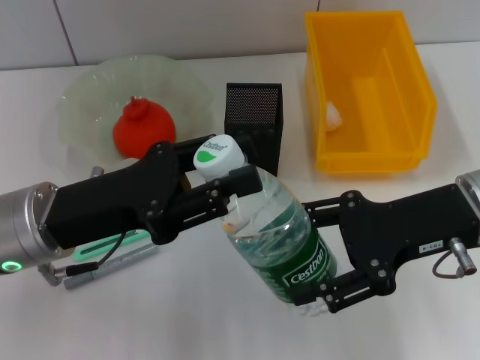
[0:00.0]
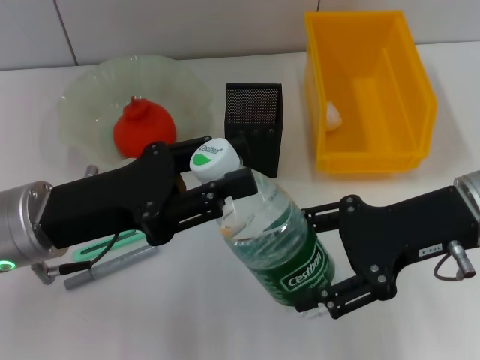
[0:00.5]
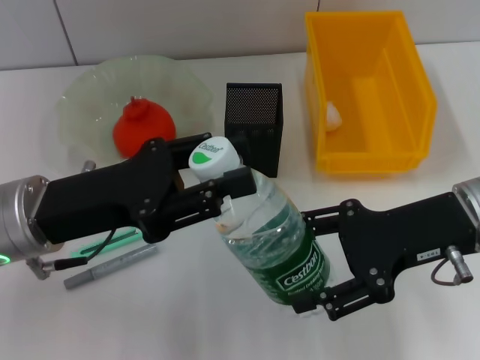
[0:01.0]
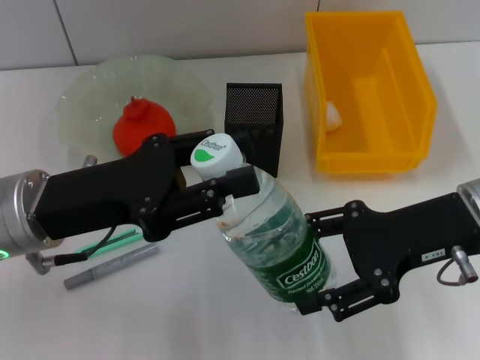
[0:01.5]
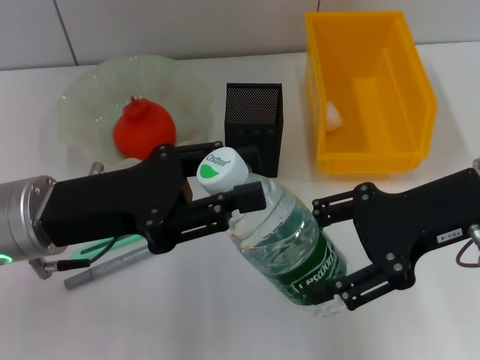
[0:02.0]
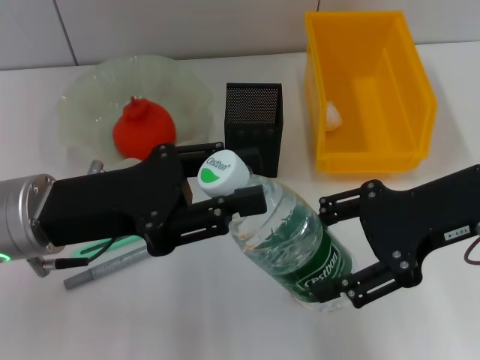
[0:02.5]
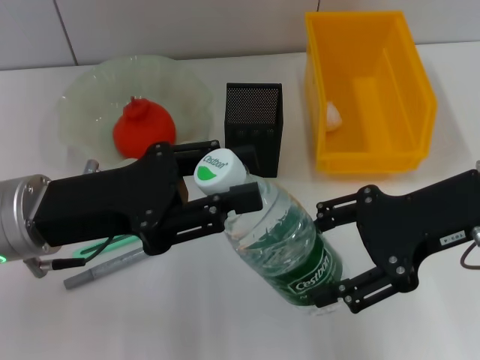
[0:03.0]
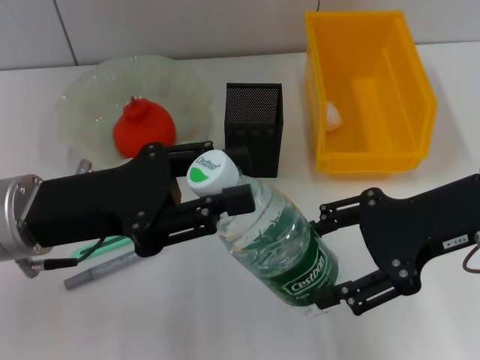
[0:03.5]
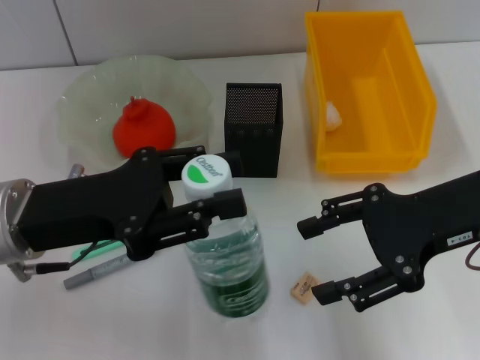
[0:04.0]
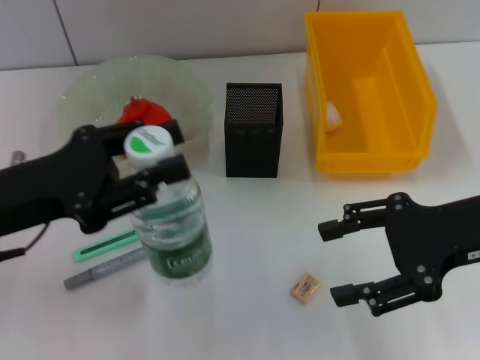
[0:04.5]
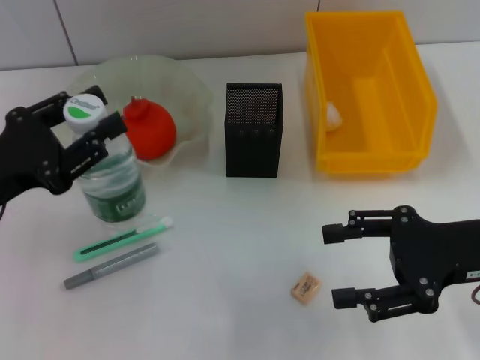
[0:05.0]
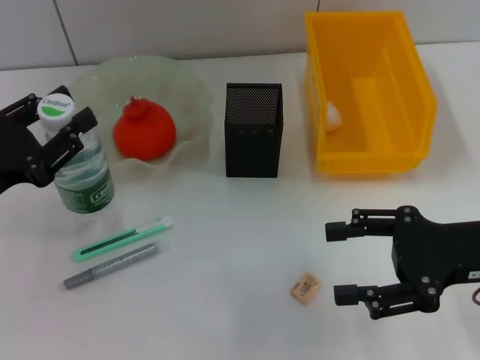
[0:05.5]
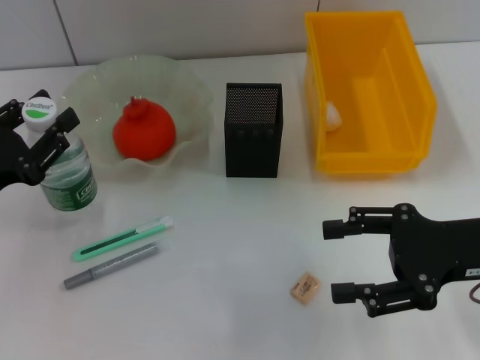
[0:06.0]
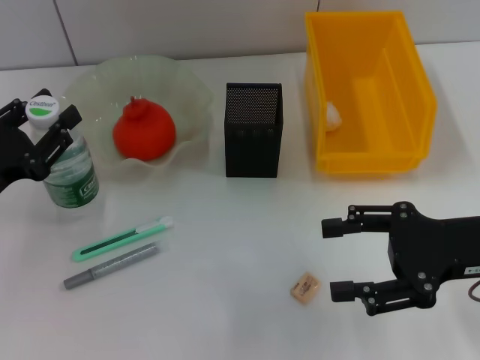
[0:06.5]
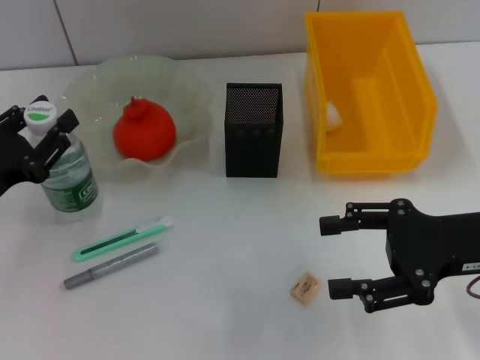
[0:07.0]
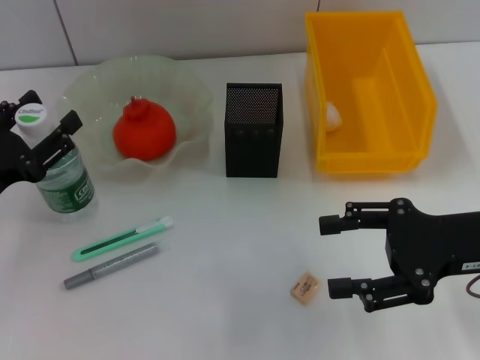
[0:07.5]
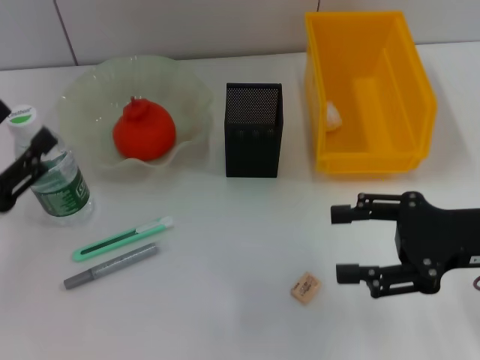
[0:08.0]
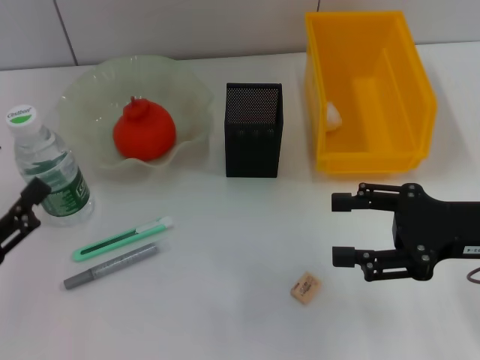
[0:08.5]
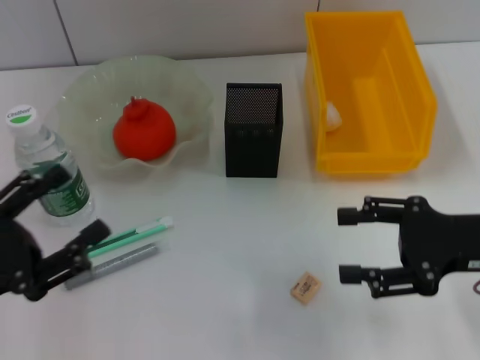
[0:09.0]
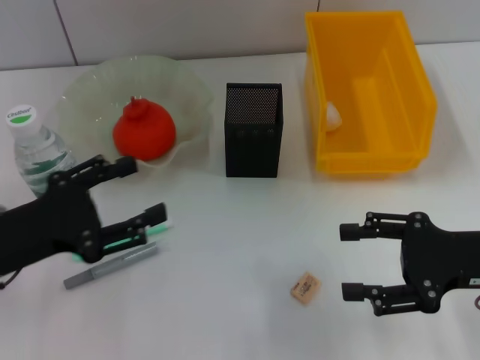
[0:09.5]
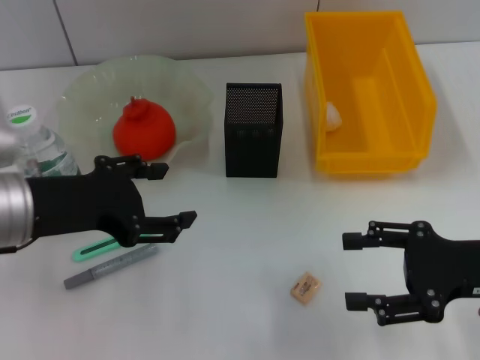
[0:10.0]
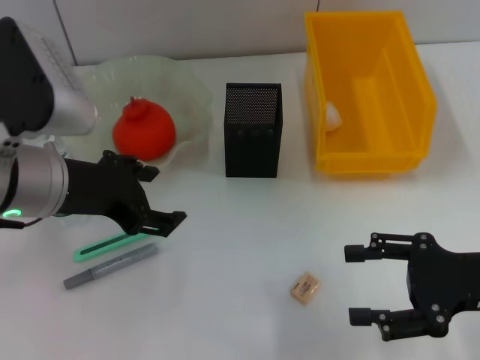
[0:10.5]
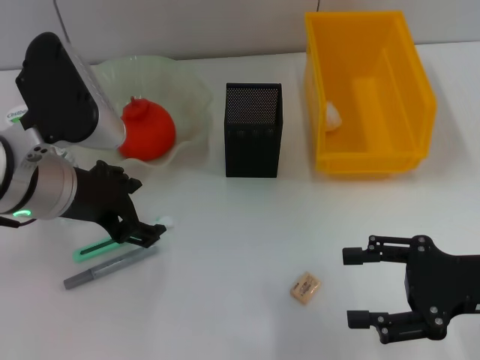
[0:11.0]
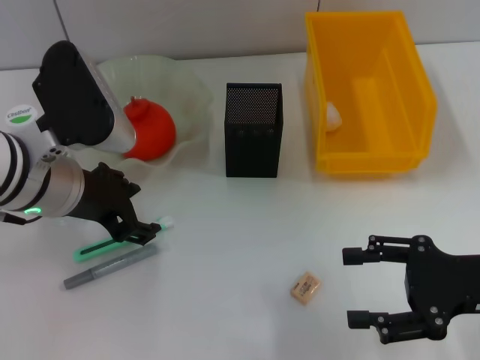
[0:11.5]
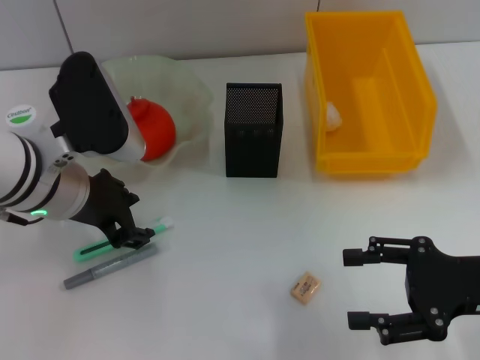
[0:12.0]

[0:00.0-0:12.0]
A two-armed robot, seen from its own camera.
Step, 0.0 to 3.5 s: Pass the water bottle from the right hand to the left hand.
Step, 4.0 to 7.5 s: Place the water bottle on the table with the left hand.
0.0 to 2.0 s: The grippers make only small movements.
2.0 to 4.0 s: Neither gripper changes place.
4.0 to 6.0 s: The right gripper travels downward by some 5 cm. The left gripper travels to the left and downward by some 10 cm.
6.0 to 8.0 s: The left gripper opens.
8.0 to 10.0 s: The left gripper travels to the right and upward by about 15 cm.
10.0 to 12.0 s: The left gripper moves forward, roughly 5 cm.

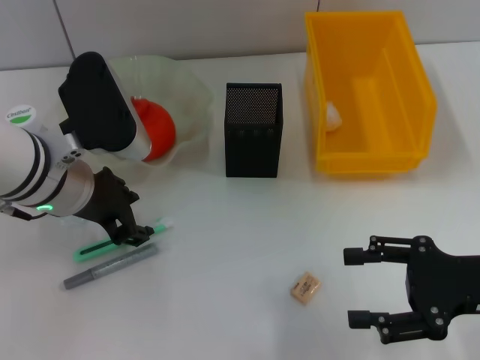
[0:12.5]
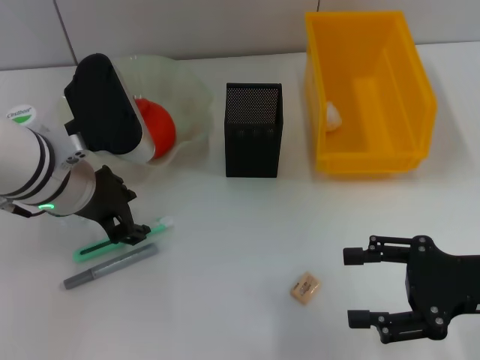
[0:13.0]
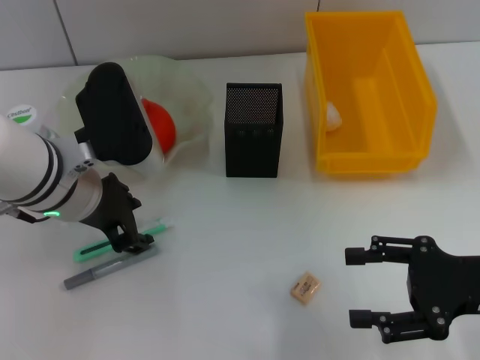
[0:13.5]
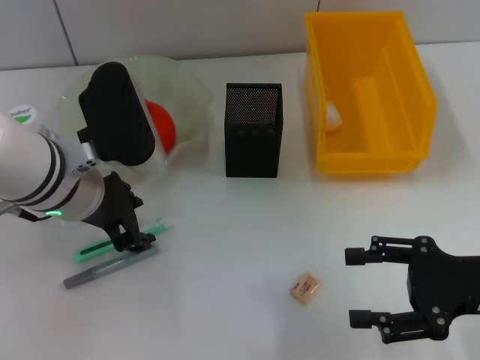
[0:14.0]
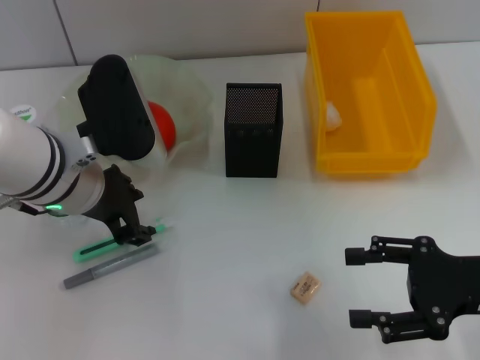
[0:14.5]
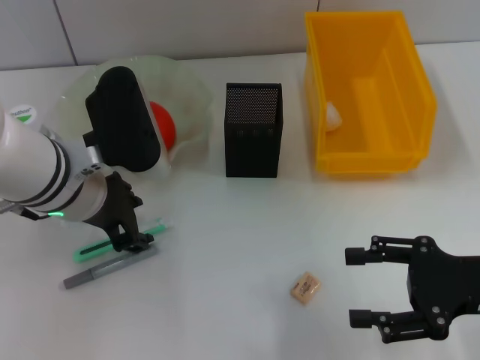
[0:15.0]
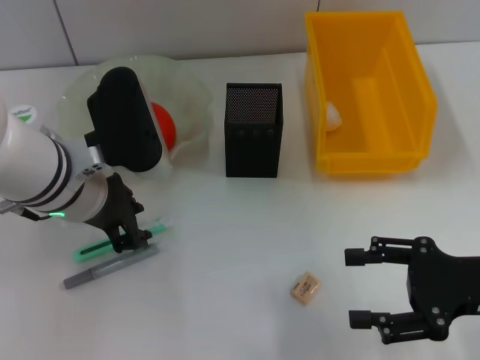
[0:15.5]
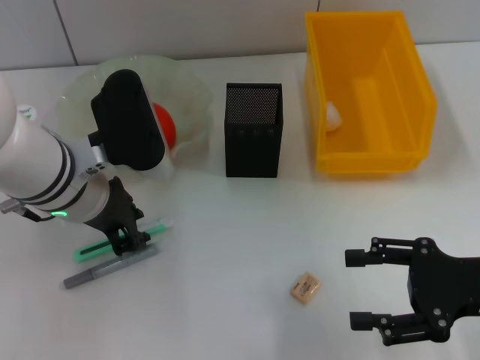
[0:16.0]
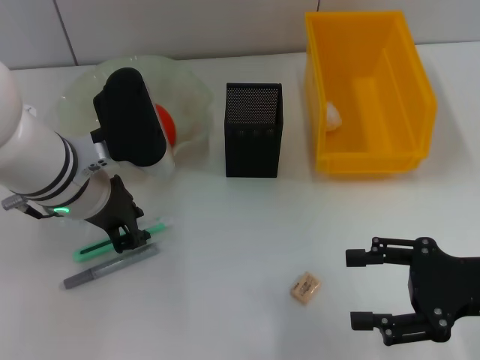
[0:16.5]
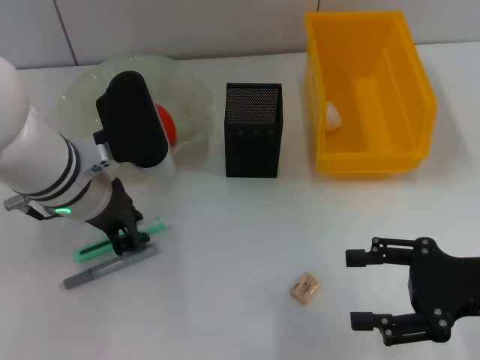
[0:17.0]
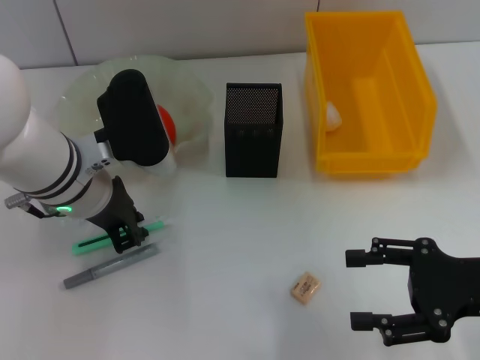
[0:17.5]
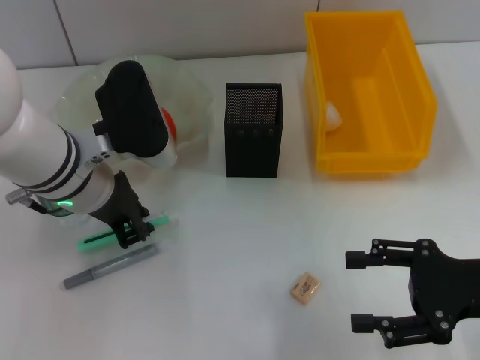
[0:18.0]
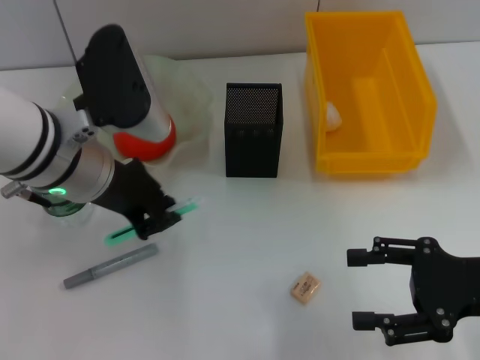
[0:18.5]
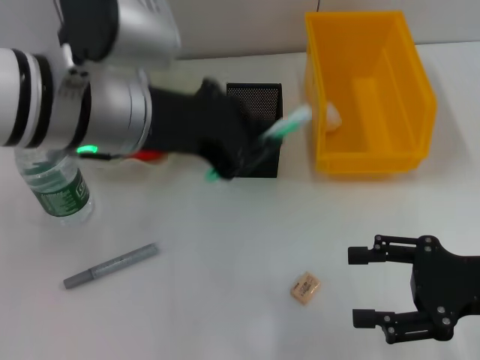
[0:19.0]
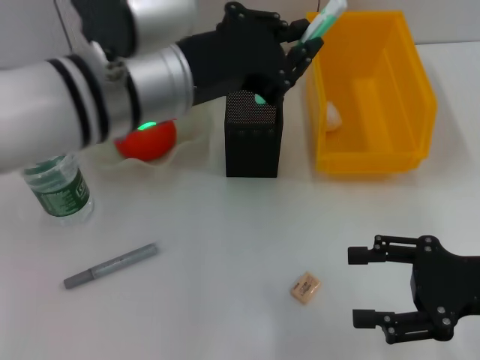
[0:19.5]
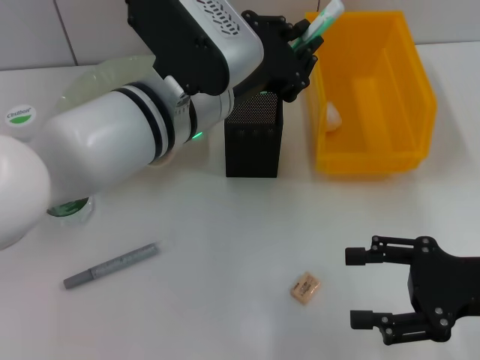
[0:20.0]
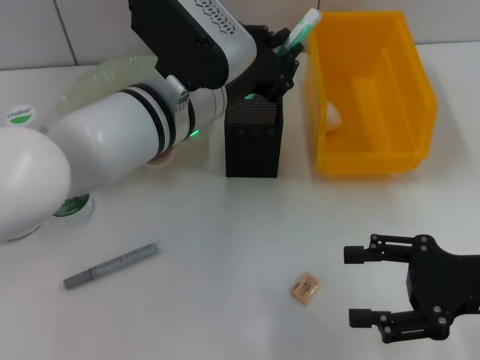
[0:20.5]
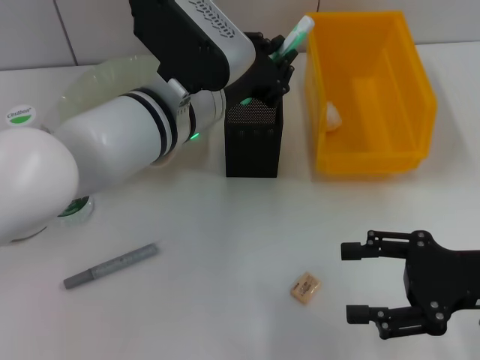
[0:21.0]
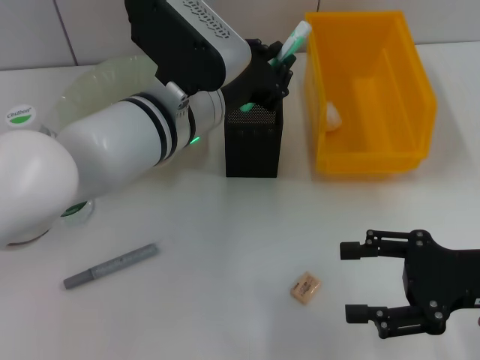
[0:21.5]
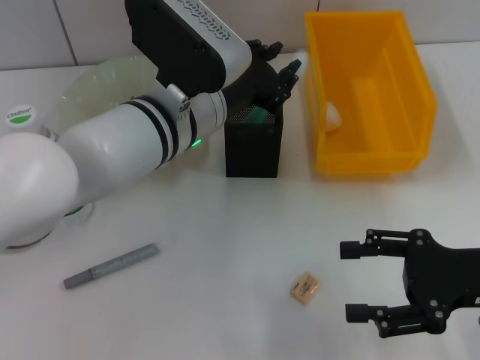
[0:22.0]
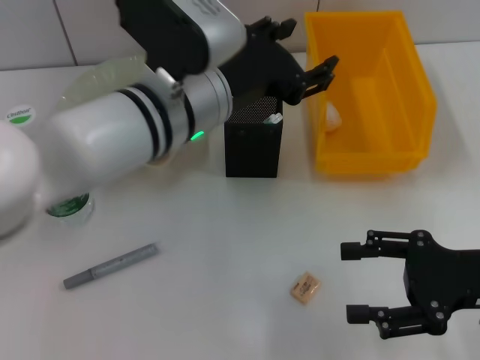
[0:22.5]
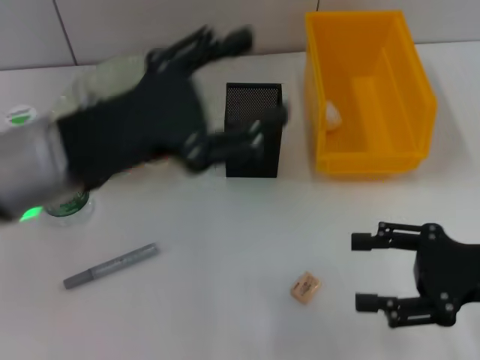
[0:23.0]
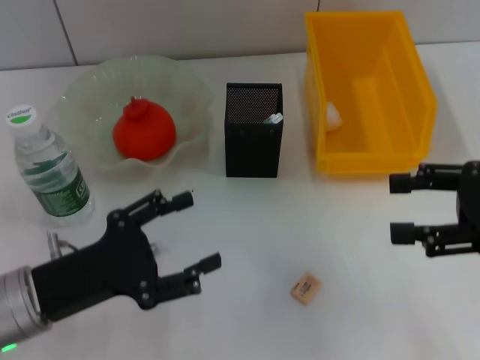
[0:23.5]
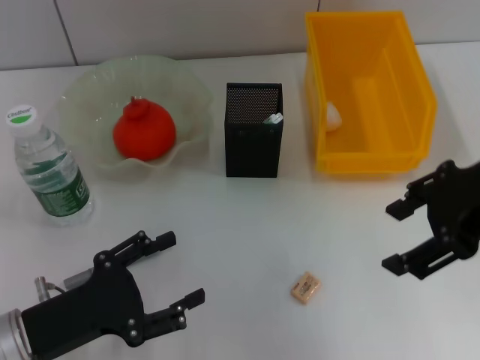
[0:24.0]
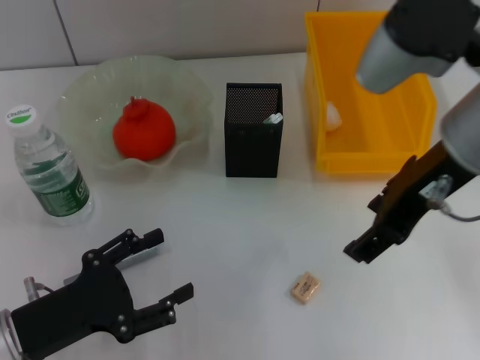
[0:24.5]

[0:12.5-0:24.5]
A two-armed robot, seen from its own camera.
Step, 12.5 to 17.5 s: Grab the blue utility knife with the left hand.
Step, 18.0 to 22.0 s: Place the blue utility knife into the pen holder with the left hand.
12.5 to 14.5 s: The grippers move only a little.
14.5 to 16.5 s: The left gripper closes up.
16.5 to 18.5 s: The grippers move only a little.
18.5 to 20.5 s: The left gripper goes roughly 10 cm to the right.
20.5 to 22.5 s: The left gripper opens.
22.5 to 24.5 s: The right gripper goes roughly 20 cm upward, to the left and forward. The left gripper goes roughly 25 cm to the left, downward and backward.

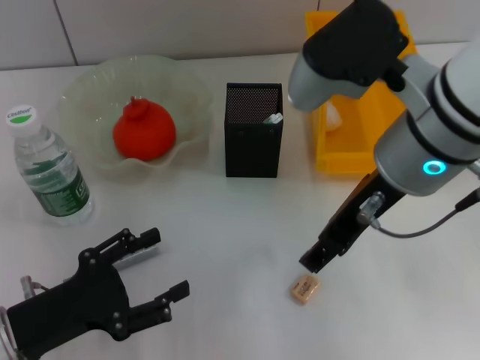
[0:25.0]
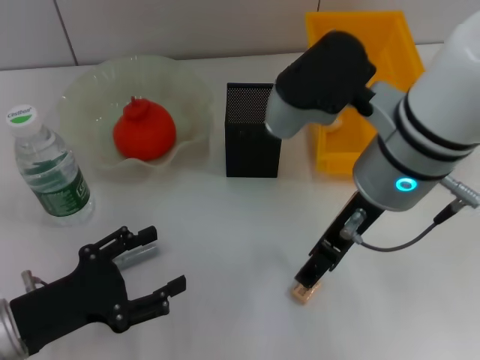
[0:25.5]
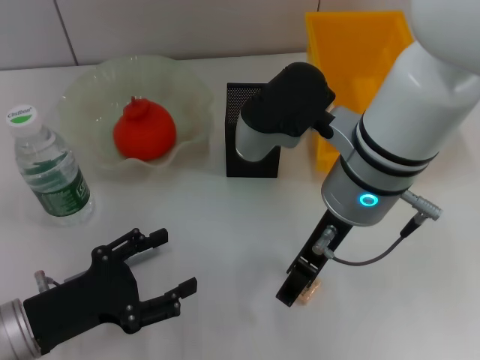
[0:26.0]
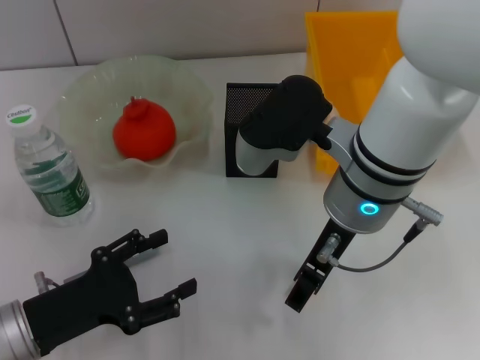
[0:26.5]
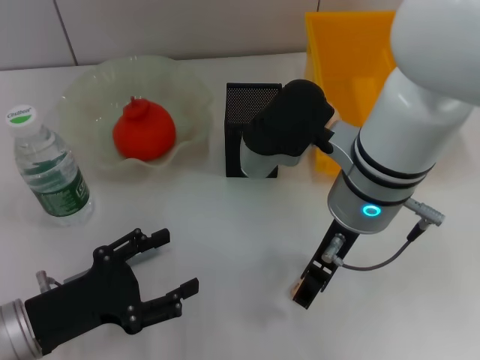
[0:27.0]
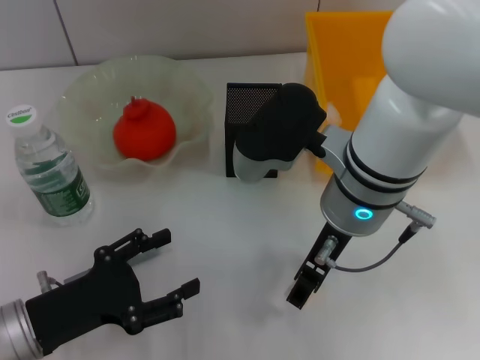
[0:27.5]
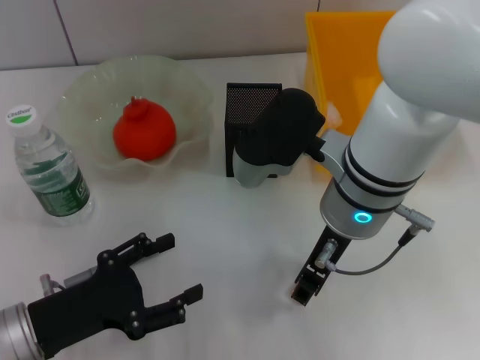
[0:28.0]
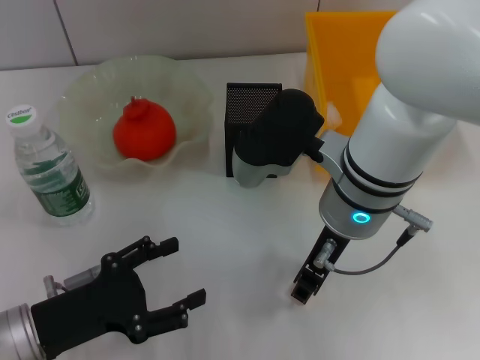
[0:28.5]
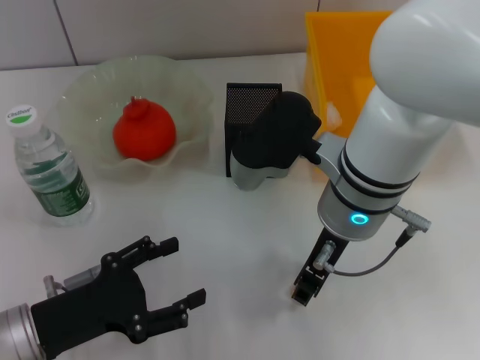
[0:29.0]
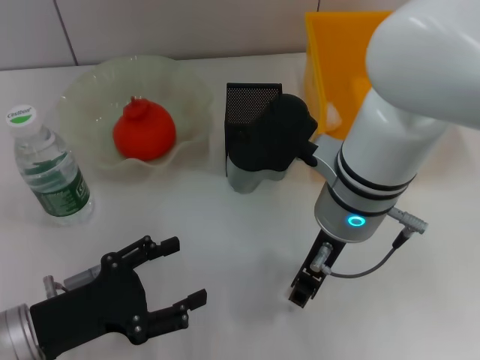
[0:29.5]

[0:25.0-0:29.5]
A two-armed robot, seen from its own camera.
25.0 to 27.0 s: The right gripper moves downward, roughly 5 cm.
27.0 to 29.5 s: The right gripper closes its fingers.
